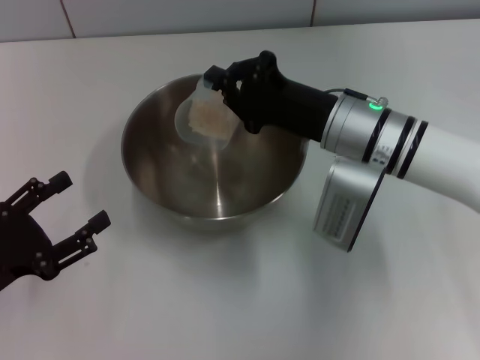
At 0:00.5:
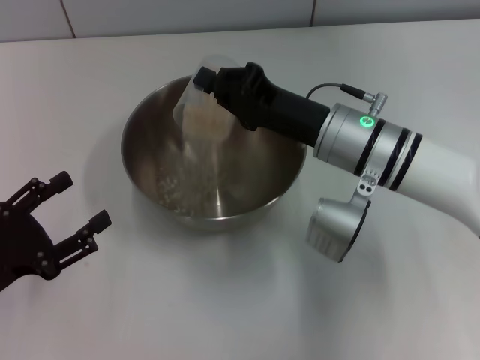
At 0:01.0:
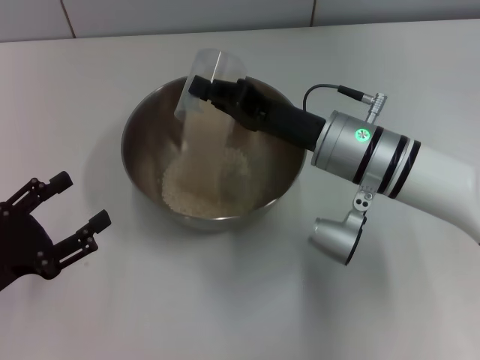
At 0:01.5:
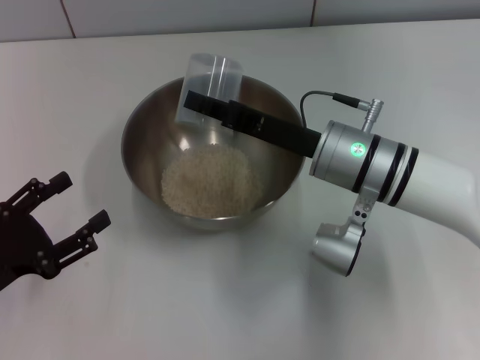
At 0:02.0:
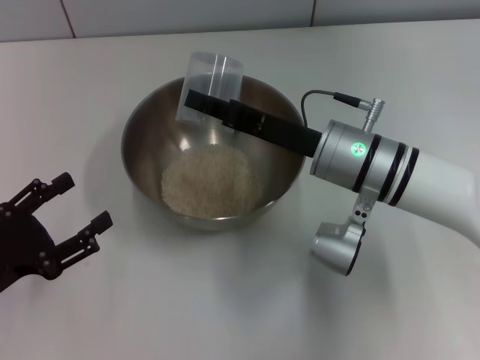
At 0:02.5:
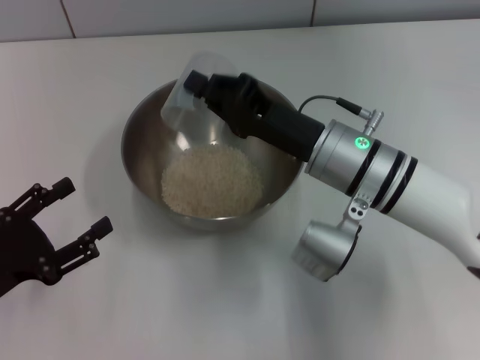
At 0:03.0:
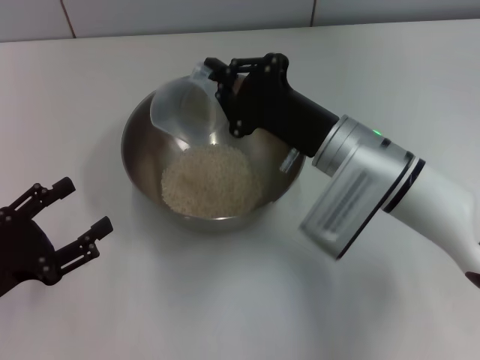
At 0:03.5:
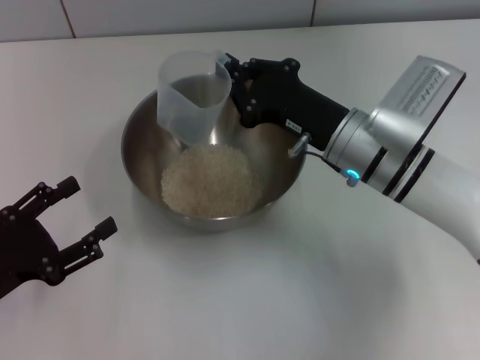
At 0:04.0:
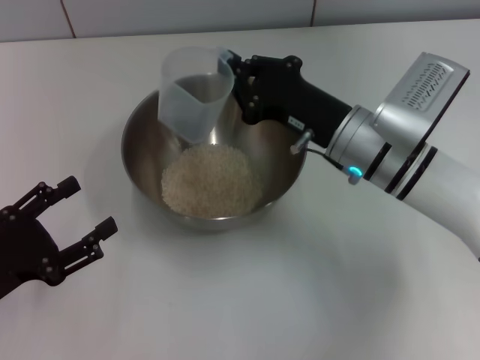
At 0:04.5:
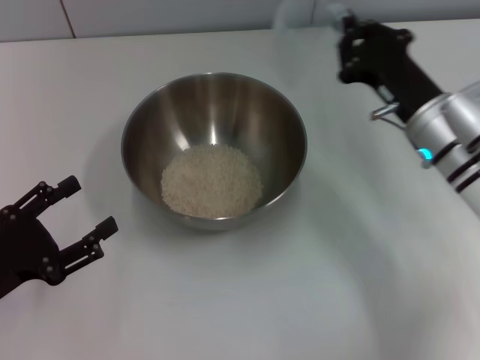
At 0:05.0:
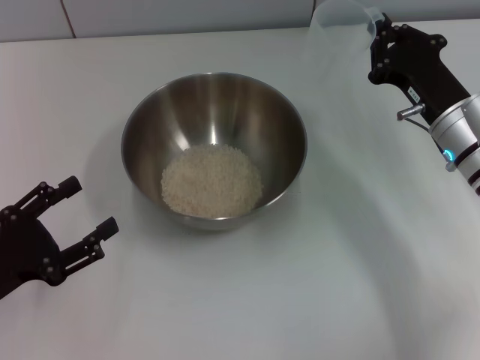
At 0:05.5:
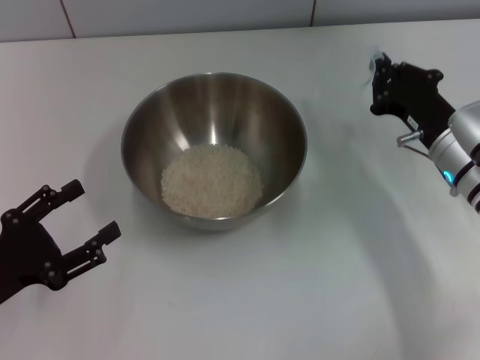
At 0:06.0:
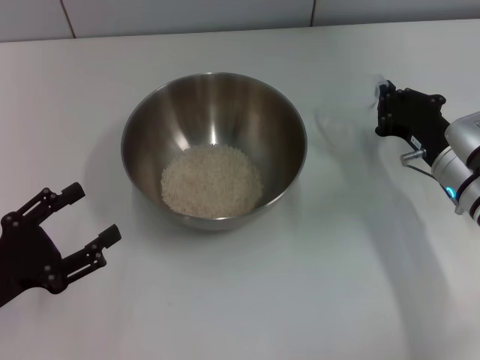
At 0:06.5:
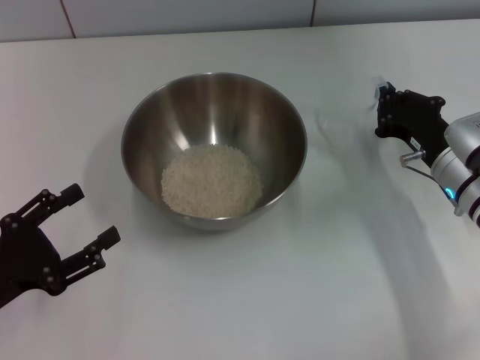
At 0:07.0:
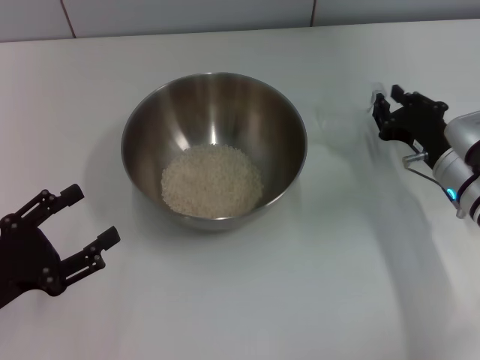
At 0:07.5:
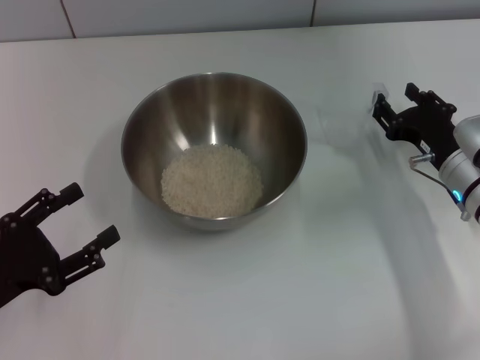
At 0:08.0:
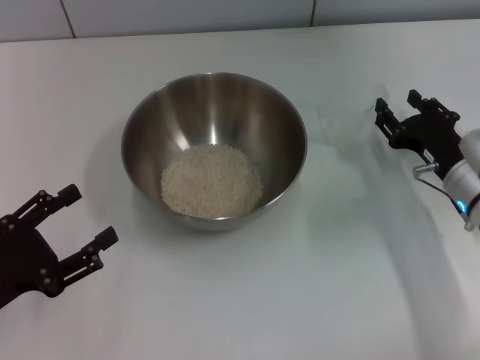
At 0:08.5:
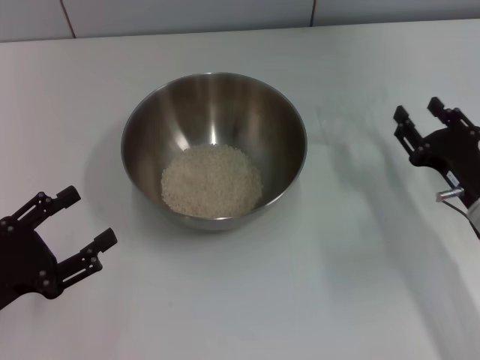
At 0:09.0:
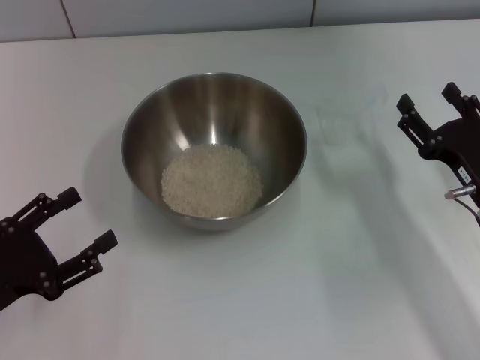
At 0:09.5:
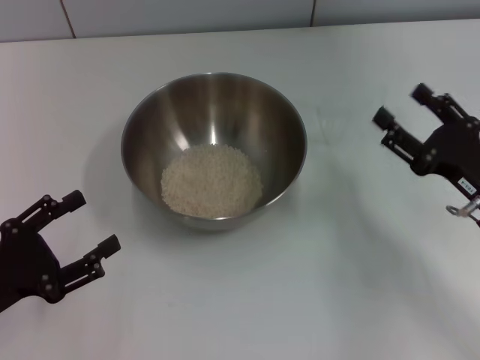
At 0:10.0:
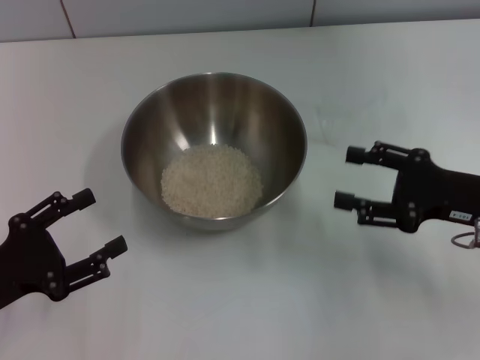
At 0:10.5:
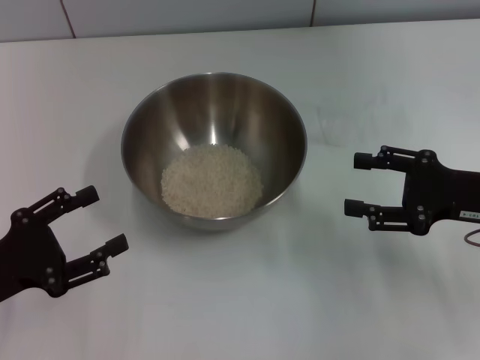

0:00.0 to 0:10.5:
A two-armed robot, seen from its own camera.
Task of the whole recording: Place the bowl in the middle of the table with one hand and pour the rice from the grain cup into it with the other hand.
Step, 0:00.0 to 0:05.0: Pour the rice from the cup into the bowl with the right gripper.
Step, 0:05.5 to 0:08.0: Place the cup on the table with the right gripper.
0:04.0 to 0:06.5: The right gripper shifts some 10 cm to the right and downward.
0:06.5 to 0:08.5: The right gripper goes roughly 5 cm backward, and opens up.
0:08.5 to 0:10.5: The right gripper goes roughly 5 cm upward.

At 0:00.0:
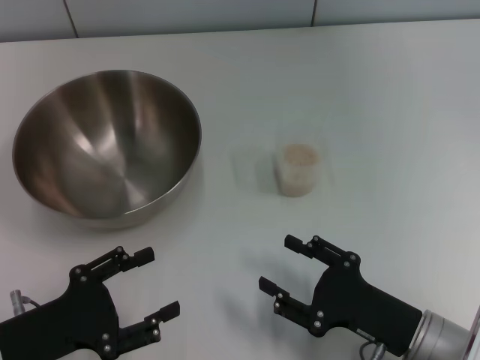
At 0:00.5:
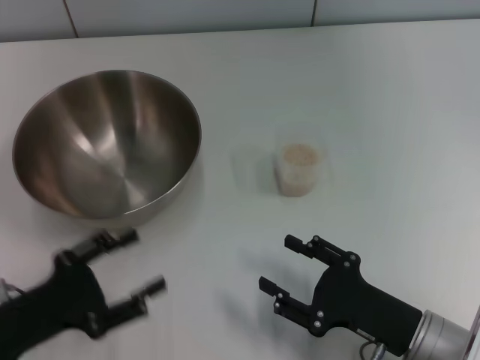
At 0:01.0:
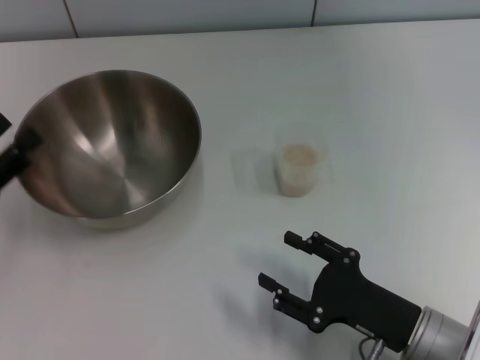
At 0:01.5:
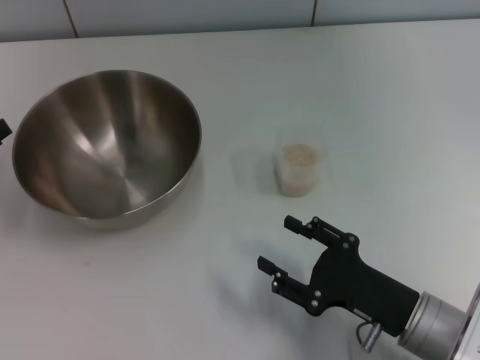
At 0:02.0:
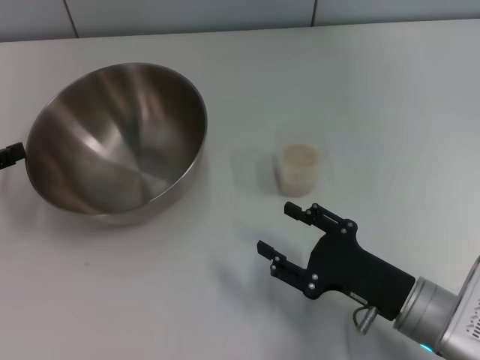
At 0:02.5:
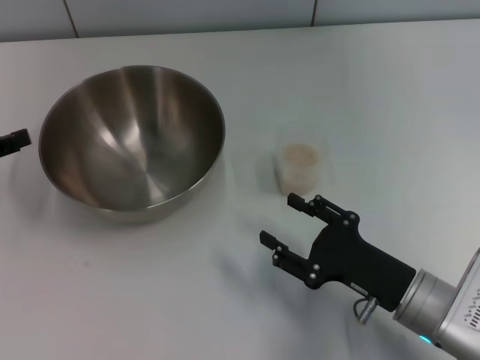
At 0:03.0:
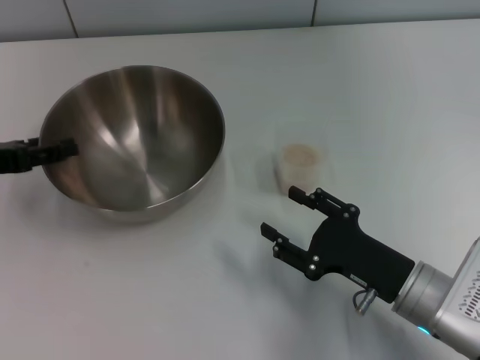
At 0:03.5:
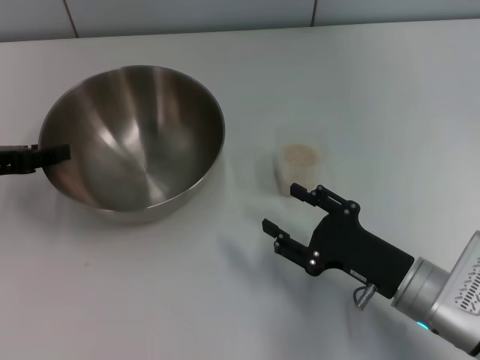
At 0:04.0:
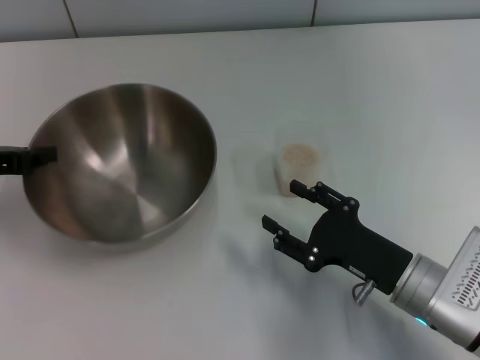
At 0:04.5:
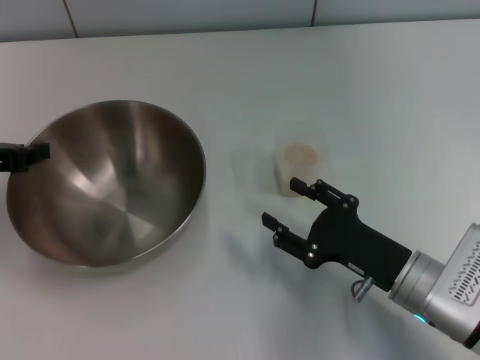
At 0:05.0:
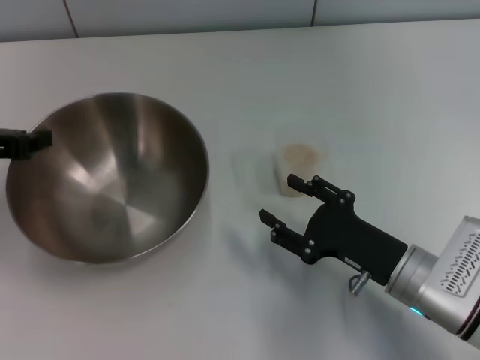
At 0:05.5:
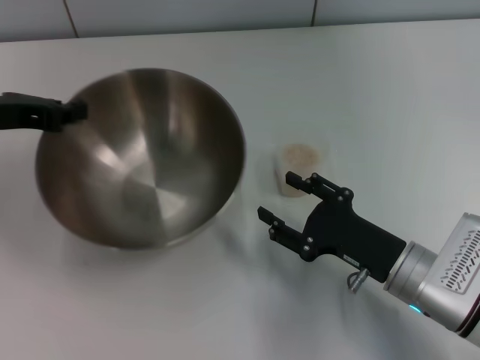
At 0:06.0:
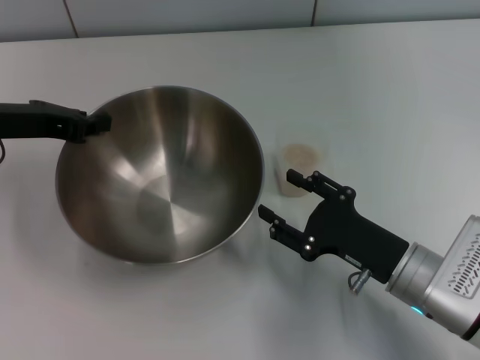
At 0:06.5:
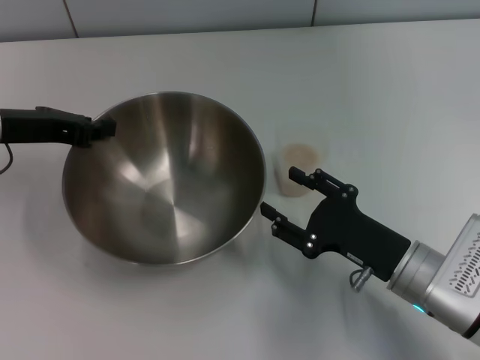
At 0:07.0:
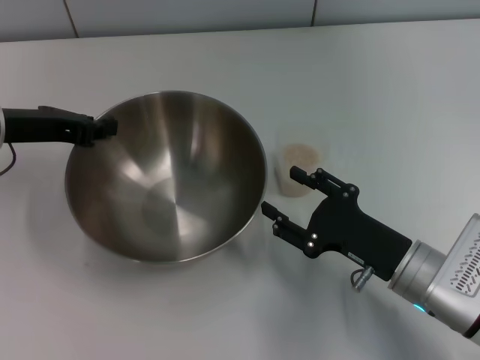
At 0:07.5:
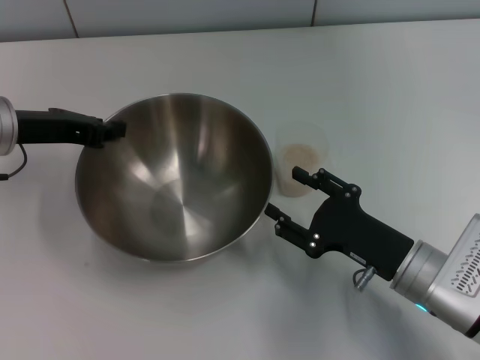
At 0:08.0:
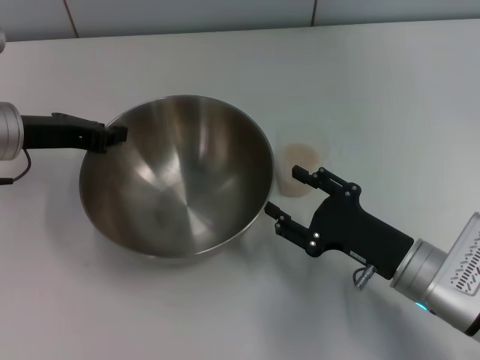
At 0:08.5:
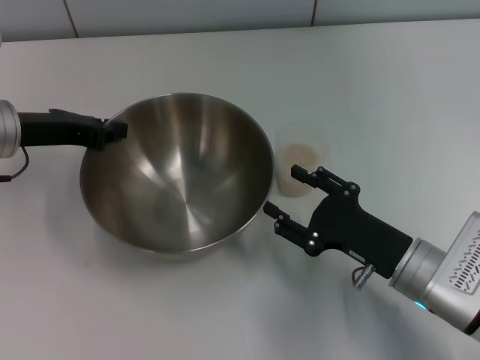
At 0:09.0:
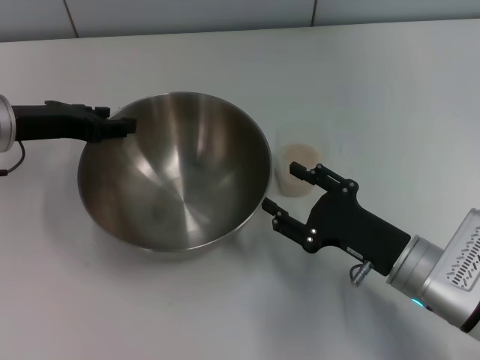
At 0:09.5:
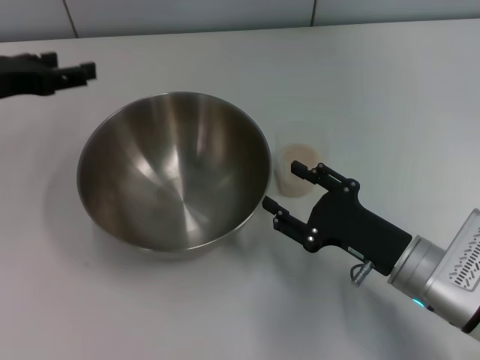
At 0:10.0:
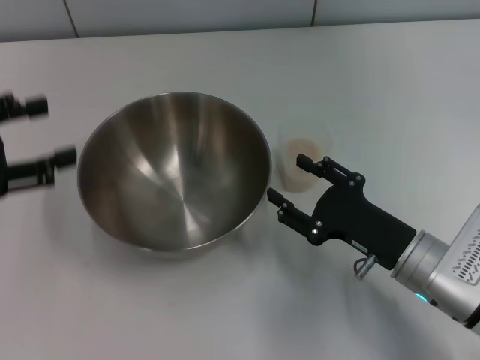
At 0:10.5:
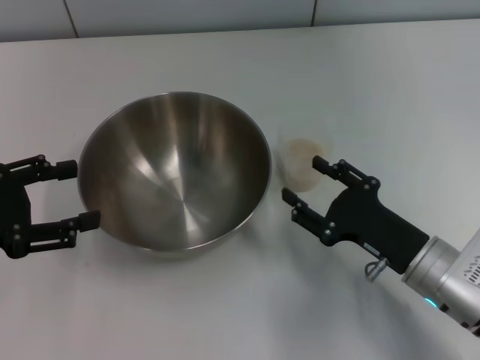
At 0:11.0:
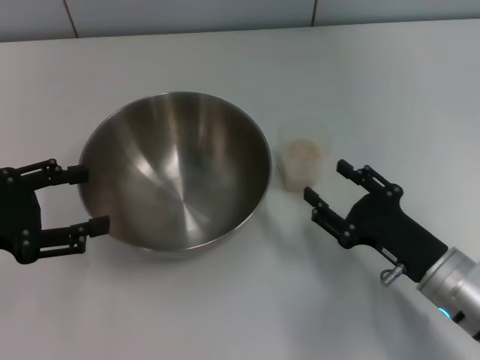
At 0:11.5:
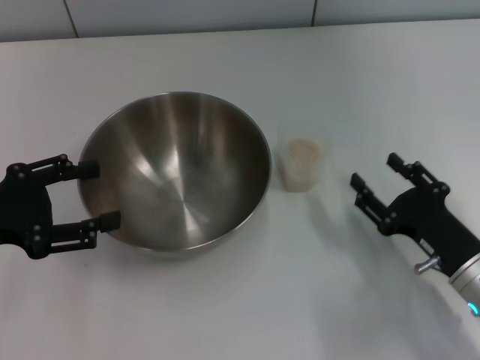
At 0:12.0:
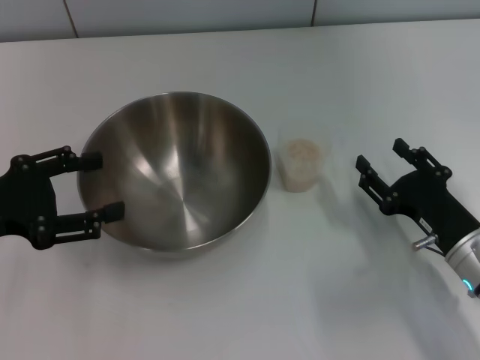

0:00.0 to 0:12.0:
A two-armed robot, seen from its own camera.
Task of the whole recording: Place the bowl in the middle of the table with one hand and pour the rice from the grain cup into it with the other hand.
Step, 0:00.0 to 0:05.0: Pick up the bowl with the left gripper.
Step, 0:05.5 to 0:09.0: Place the bowl in the center of view with the left gripper.
0:00.0 to 0:02.0: The left gripper goes approximately 15 cm forward, to the left and upward.
0:02.0 to 0:04.0: The left gripper shifts by approximately 5 cm, and closes.
0:04.0 to 0:06.0: The left gripper is displaced to the right by approximately 5 cm.
0:06.0 to 0:08.0: The grippers make only small movements.
0:08.0 to 0:10.0: The left gripper heads backward and to the left, covering some 10 cm, and opens its fingers.
0:10.0 to 0:12.0: The right gripper shifts some 5 cm to the right.

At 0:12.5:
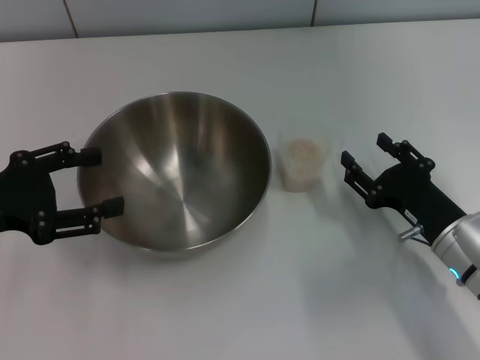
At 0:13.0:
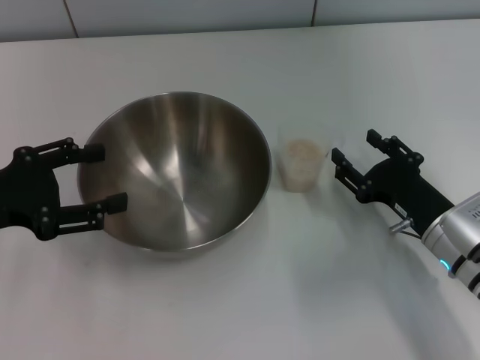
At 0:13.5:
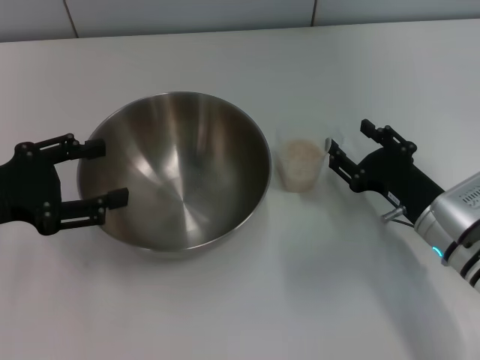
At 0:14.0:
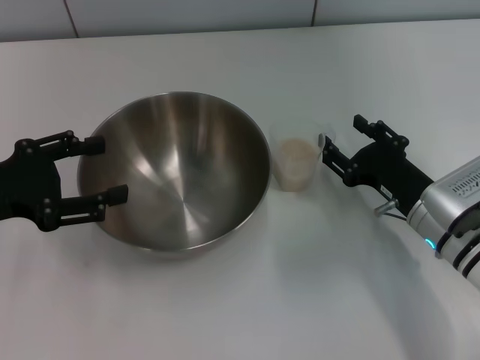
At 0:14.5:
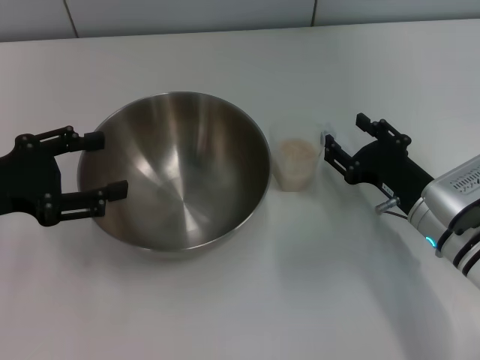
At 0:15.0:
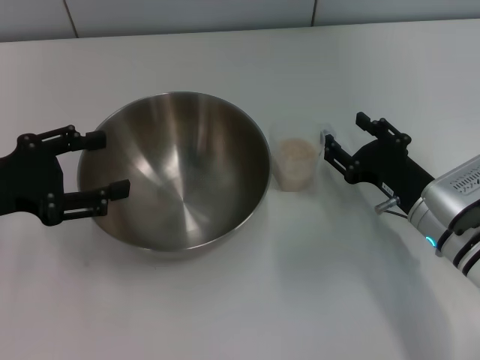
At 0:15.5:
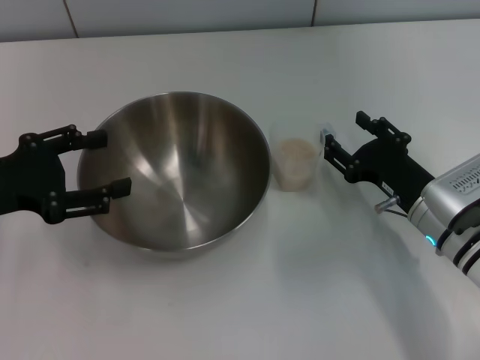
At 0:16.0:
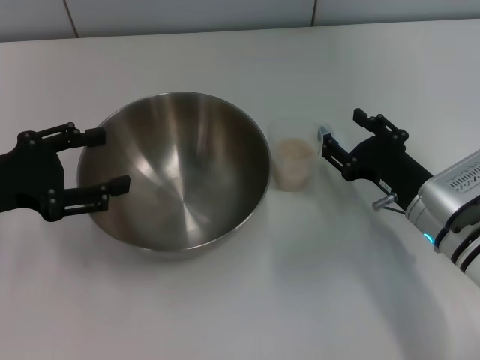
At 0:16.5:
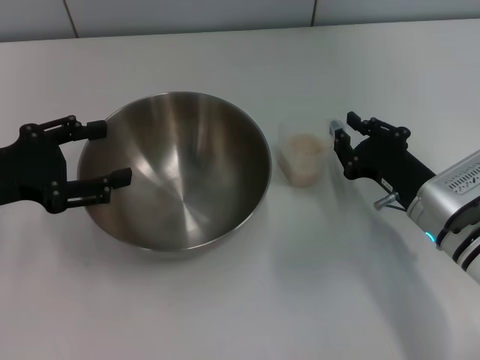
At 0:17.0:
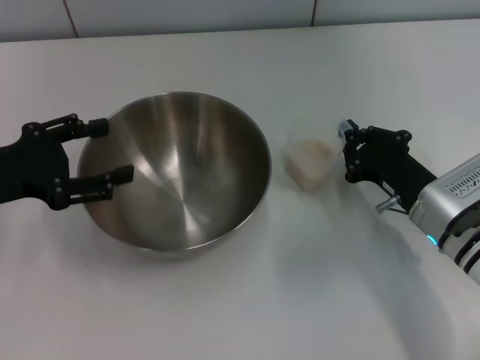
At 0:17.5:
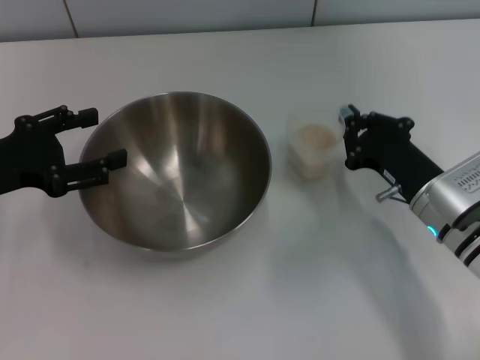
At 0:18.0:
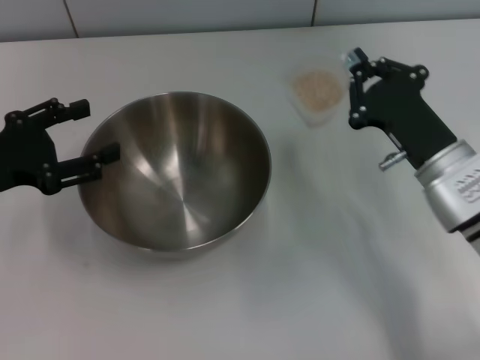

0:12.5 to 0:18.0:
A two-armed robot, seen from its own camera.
Task of the whole recording: Place the bowl in the middle of the table with one hand and pour the rice from the grain cup into it with the other hand.
Step, 0:12.5 to 0:17.5: Pick up the cup with rice in it with the right gripper.
0:12.5 to 0:14.5: The grippers make only small movements.
0:14.5 to 0:16.0: Neither gripper changes place.
0:16.0 to 0:18.0: The right gripper closes its fingers.
